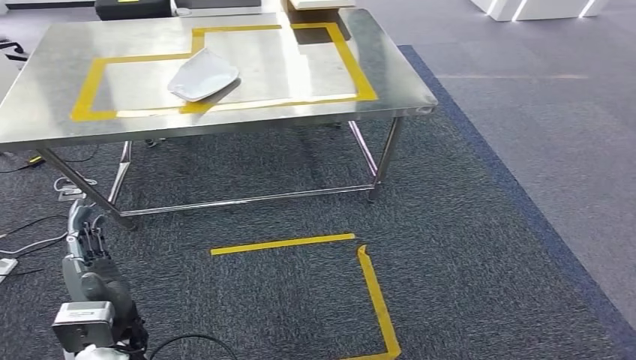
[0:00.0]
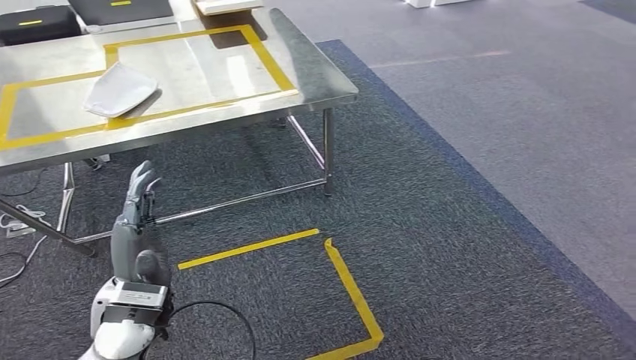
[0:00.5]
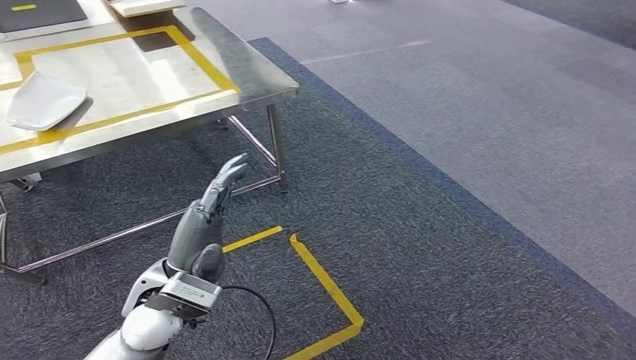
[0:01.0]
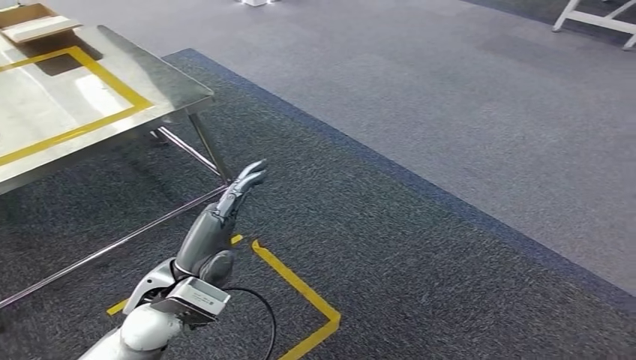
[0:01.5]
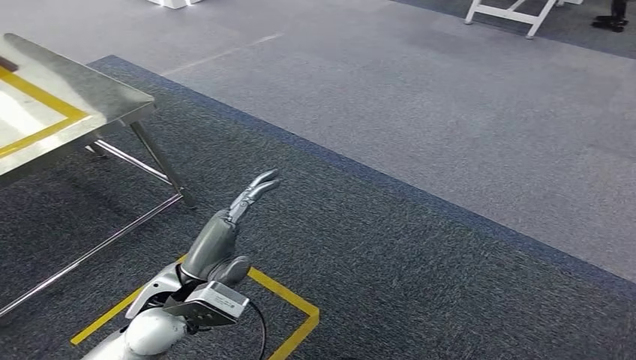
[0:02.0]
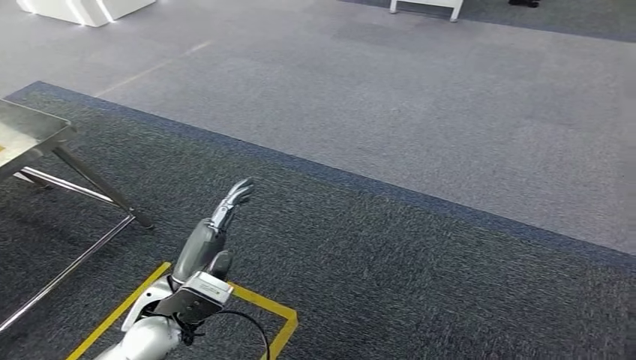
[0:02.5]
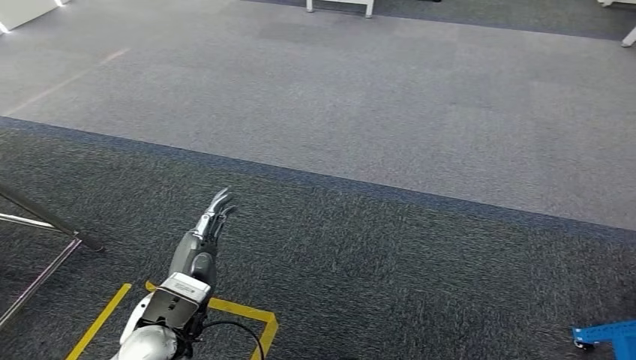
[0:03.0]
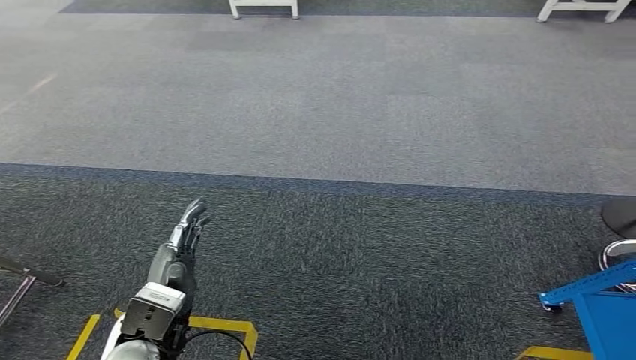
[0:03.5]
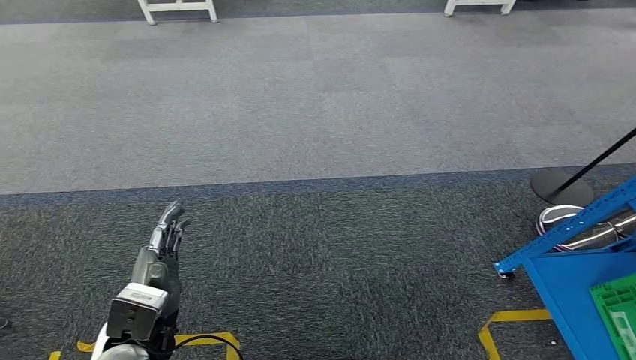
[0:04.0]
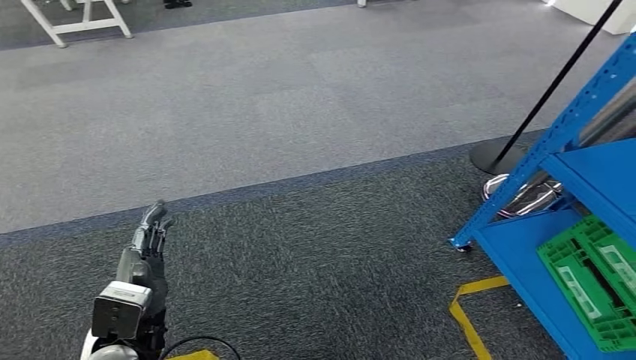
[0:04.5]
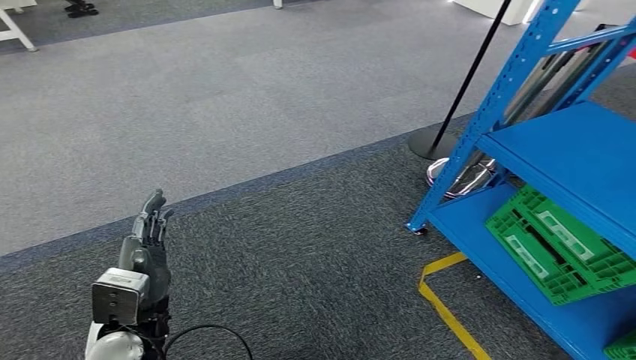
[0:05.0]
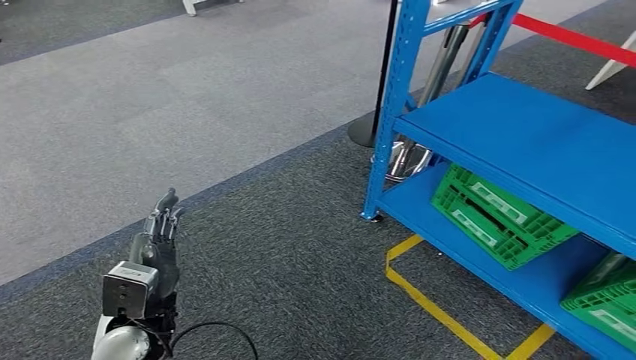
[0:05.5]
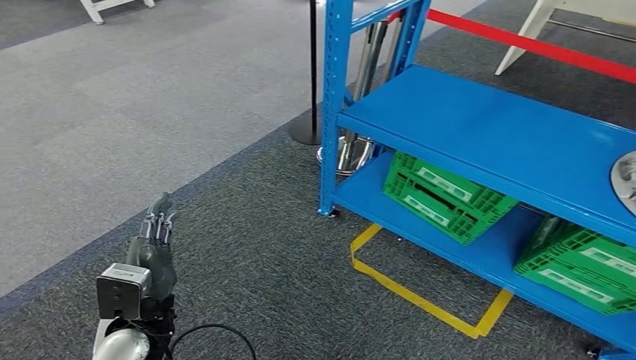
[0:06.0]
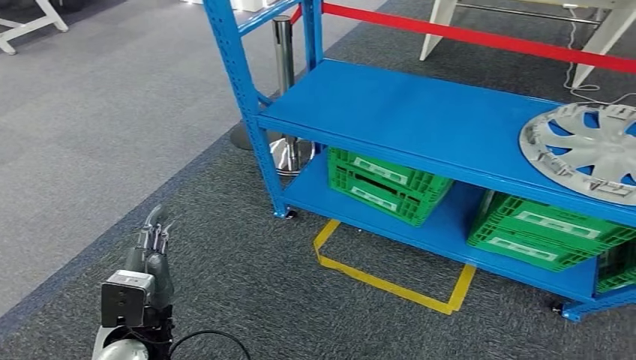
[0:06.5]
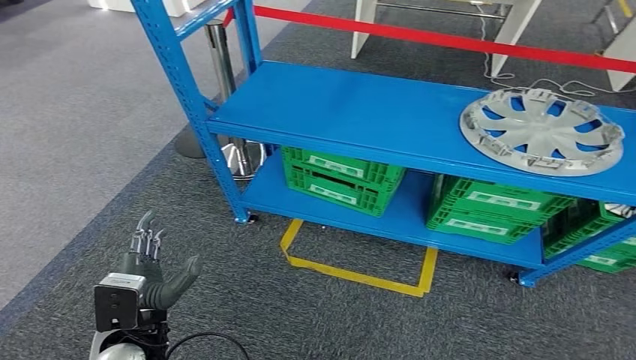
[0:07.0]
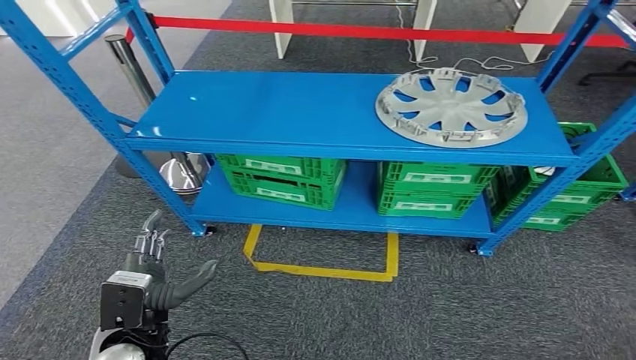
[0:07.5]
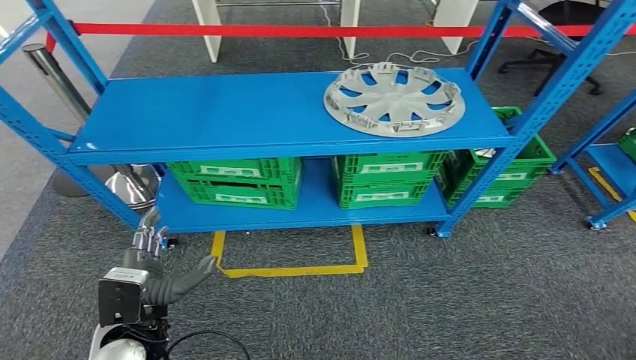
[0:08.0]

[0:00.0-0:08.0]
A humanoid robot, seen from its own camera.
Step, 0:00.0 to 0:08.0: Return to the initial position at the workbench.
